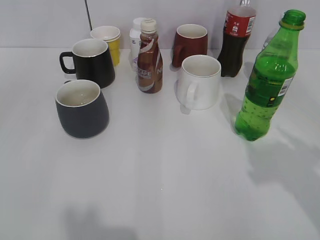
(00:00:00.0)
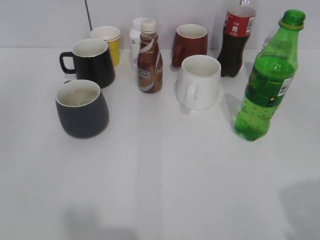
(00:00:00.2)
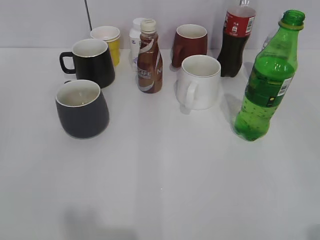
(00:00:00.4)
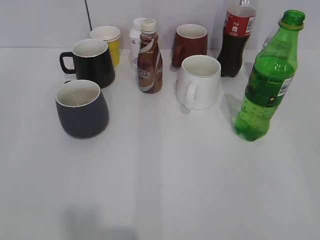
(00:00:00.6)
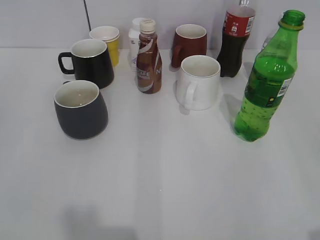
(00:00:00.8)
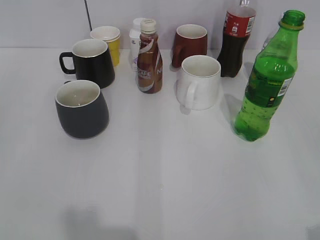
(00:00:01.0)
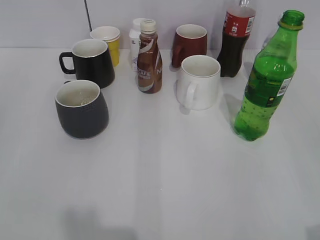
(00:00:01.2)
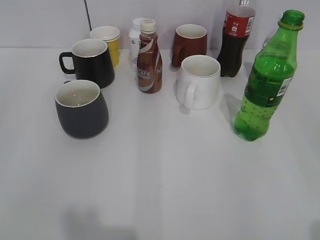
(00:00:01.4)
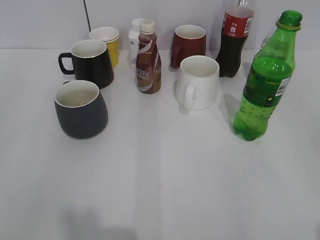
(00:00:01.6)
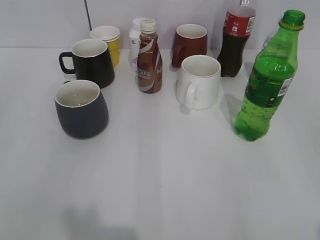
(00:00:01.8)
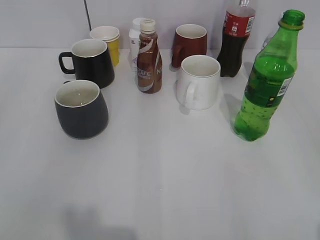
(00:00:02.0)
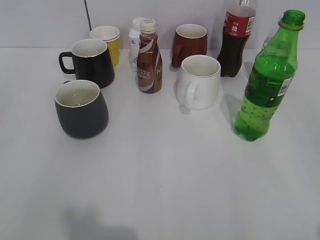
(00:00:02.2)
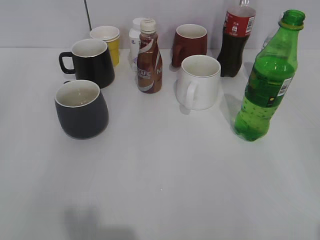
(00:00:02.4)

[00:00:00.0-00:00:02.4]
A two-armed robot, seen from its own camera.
00:00:00.0 to 00:00:01.2: The right gripper goes about 15 cm backward and downward.
